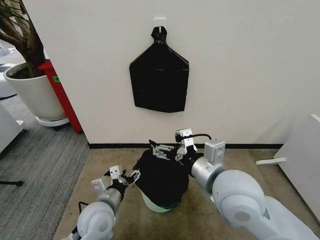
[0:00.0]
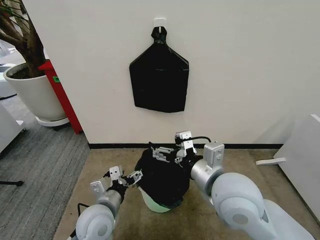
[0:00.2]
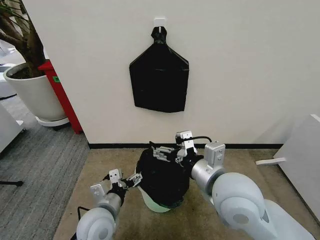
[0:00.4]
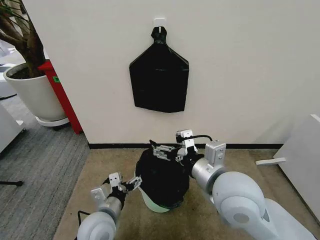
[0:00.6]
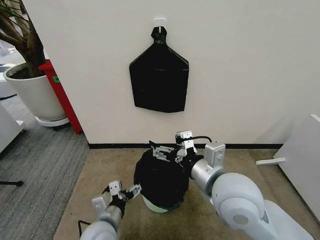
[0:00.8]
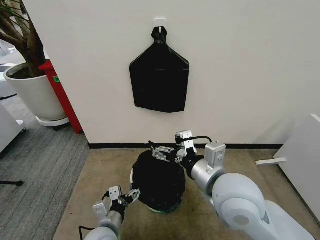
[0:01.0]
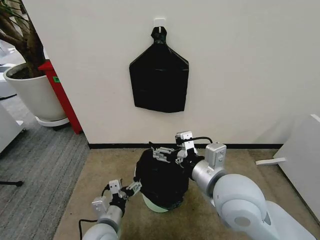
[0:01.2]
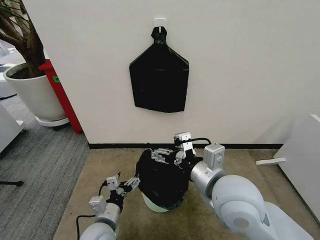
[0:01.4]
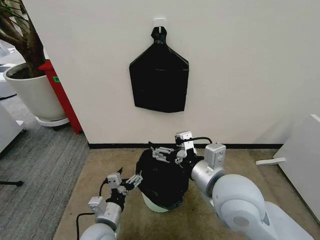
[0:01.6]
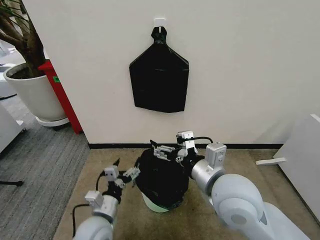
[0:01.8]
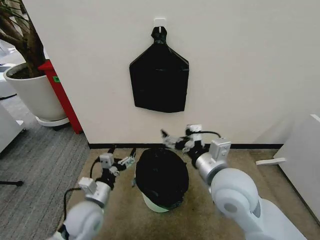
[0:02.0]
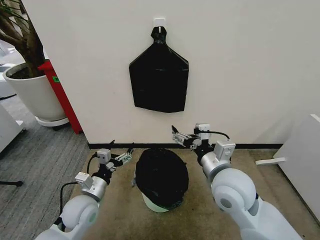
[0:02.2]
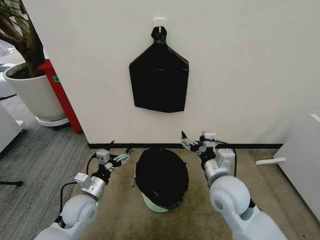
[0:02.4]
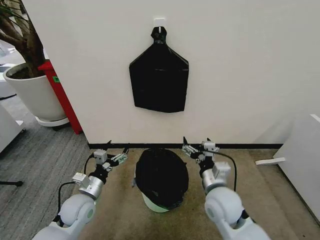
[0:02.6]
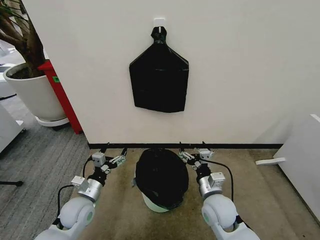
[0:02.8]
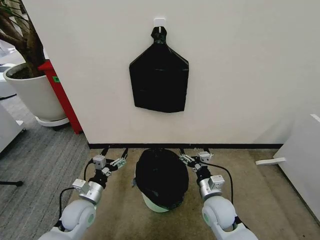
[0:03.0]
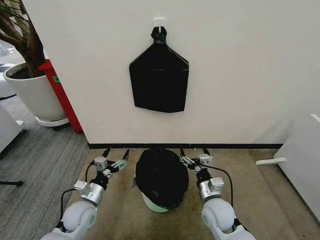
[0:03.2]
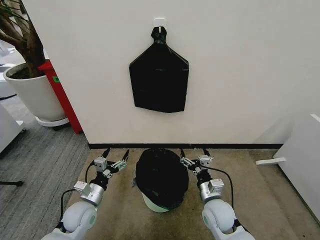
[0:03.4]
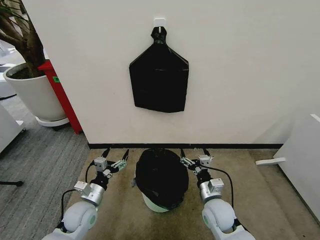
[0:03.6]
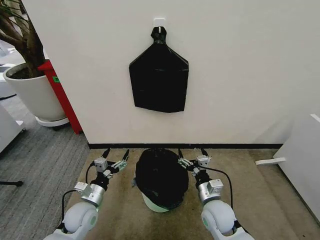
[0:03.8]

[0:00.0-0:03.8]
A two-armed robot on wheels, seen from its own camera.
Task of the whole recording: Place the garbage bag over the trash bin.
0:00.0 to 0:01.2: The left gripper goes roughly 5 cm downward.
0:01.2 to 0:02.6: The right gripper moves downward, some 15 cm; the left gripper shifts some 15 cm to the left and forward.
0:02.6 to 0:03.8: The right gripper moves downward, about 10 cm.

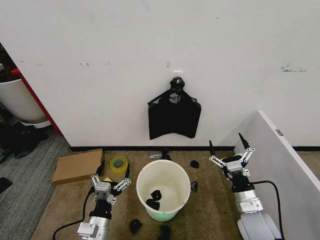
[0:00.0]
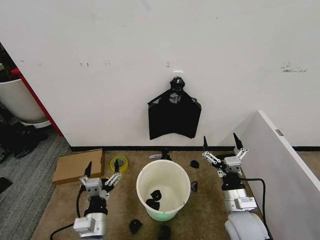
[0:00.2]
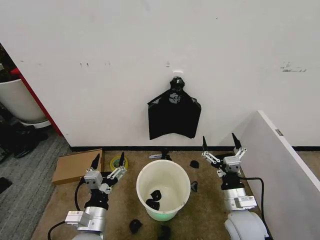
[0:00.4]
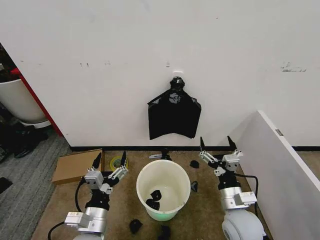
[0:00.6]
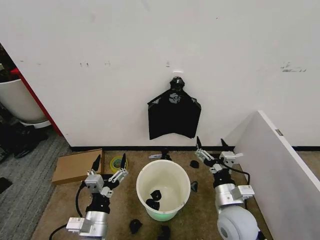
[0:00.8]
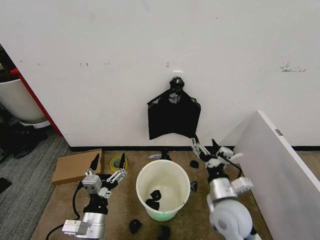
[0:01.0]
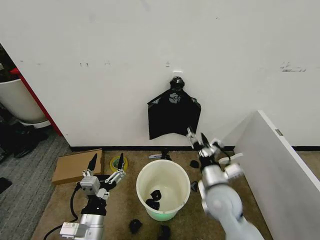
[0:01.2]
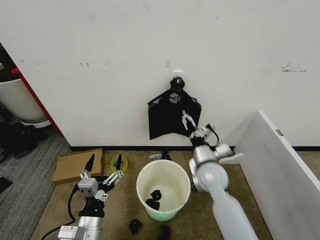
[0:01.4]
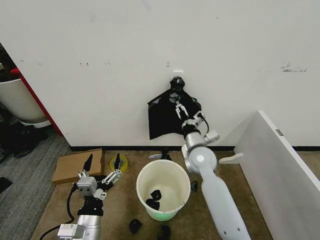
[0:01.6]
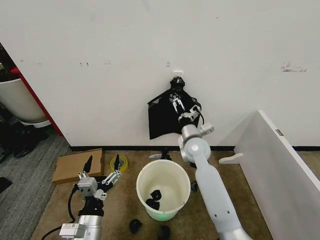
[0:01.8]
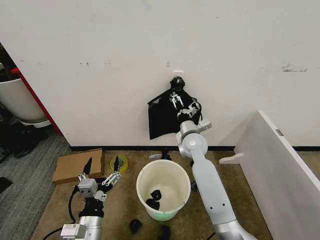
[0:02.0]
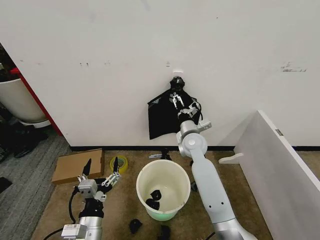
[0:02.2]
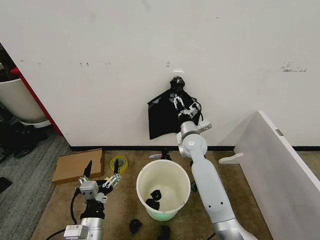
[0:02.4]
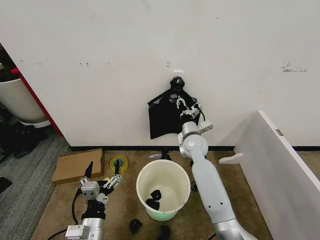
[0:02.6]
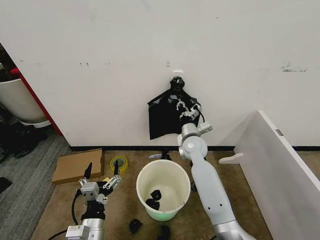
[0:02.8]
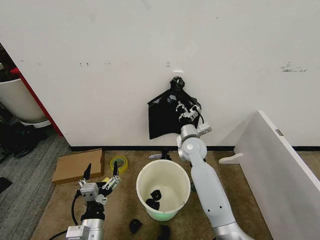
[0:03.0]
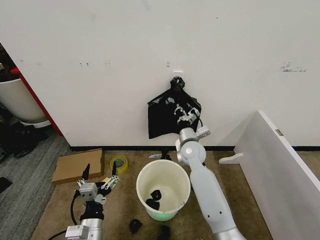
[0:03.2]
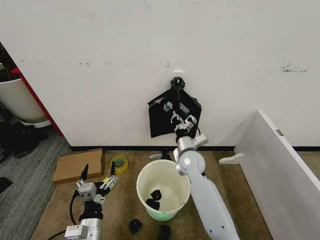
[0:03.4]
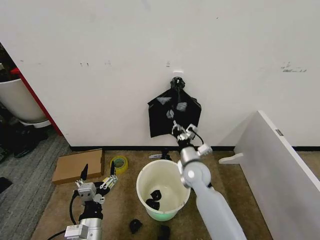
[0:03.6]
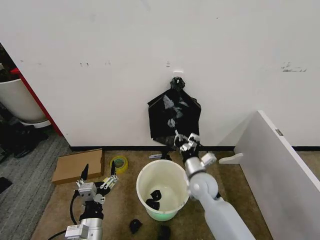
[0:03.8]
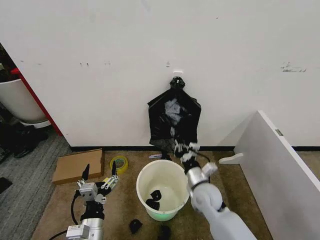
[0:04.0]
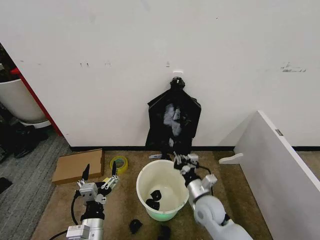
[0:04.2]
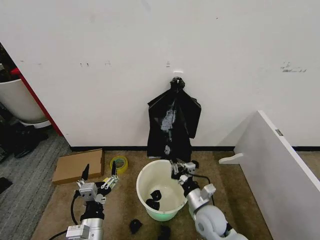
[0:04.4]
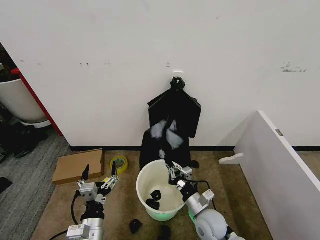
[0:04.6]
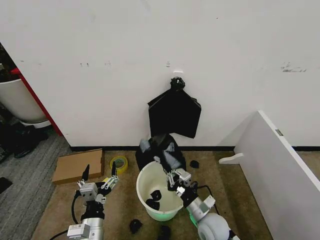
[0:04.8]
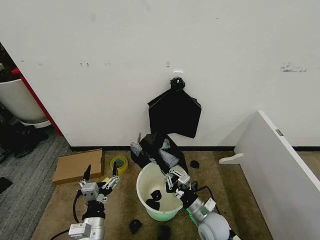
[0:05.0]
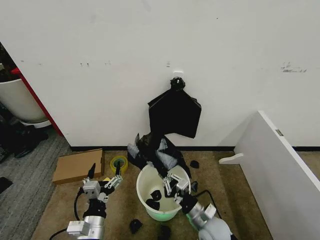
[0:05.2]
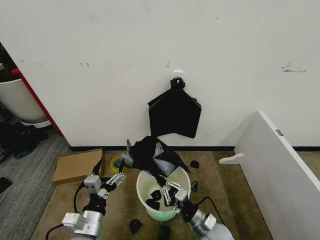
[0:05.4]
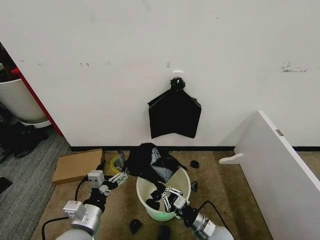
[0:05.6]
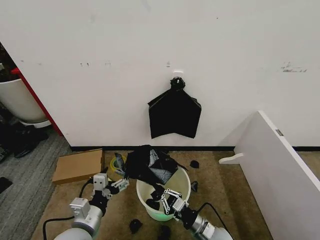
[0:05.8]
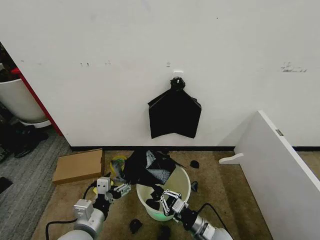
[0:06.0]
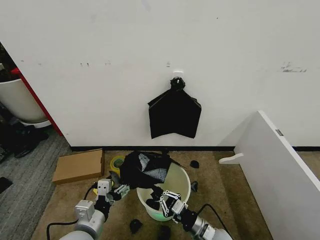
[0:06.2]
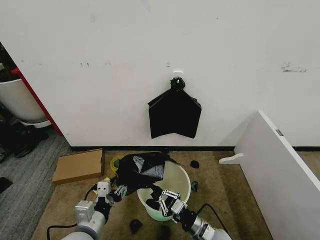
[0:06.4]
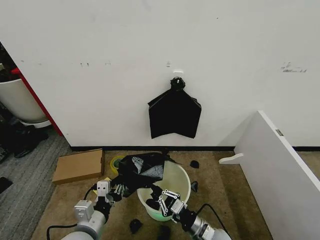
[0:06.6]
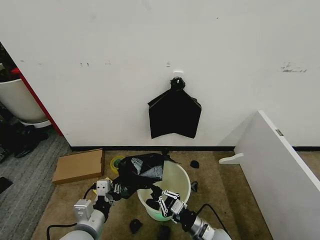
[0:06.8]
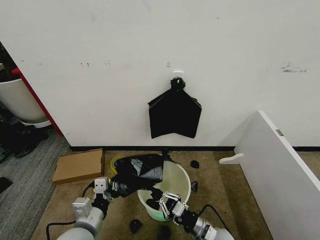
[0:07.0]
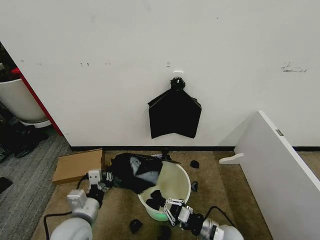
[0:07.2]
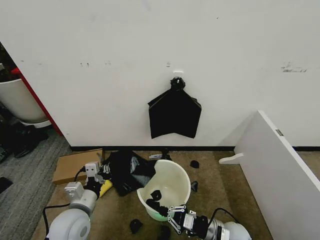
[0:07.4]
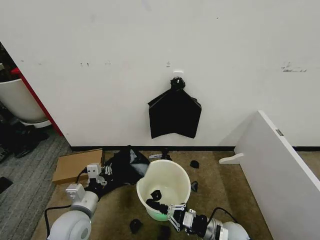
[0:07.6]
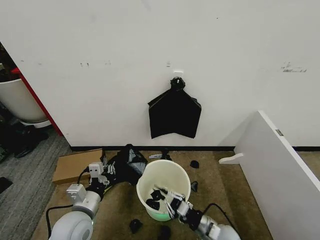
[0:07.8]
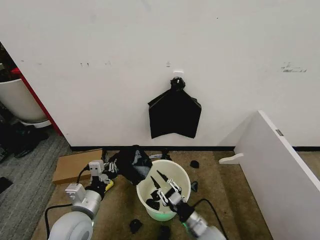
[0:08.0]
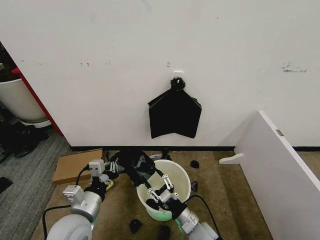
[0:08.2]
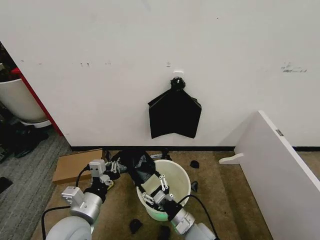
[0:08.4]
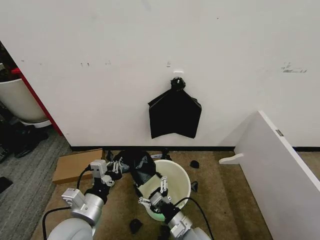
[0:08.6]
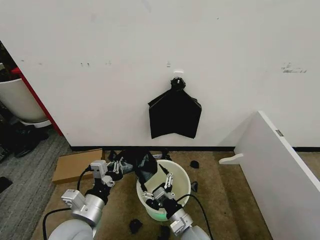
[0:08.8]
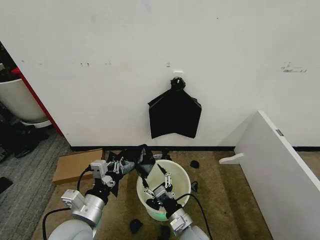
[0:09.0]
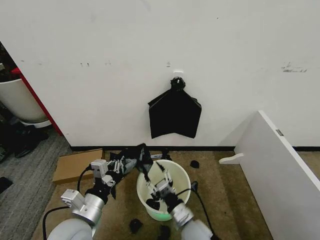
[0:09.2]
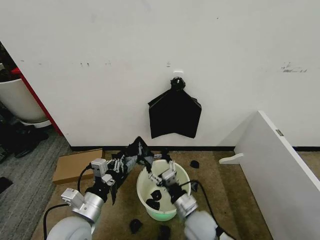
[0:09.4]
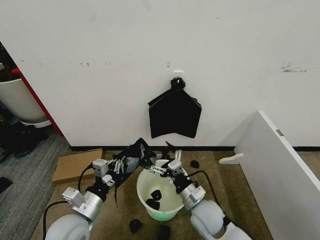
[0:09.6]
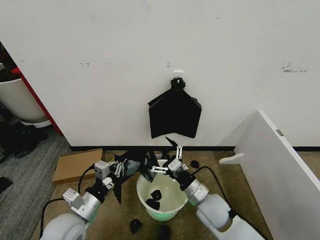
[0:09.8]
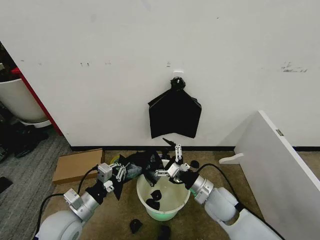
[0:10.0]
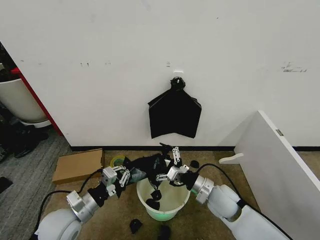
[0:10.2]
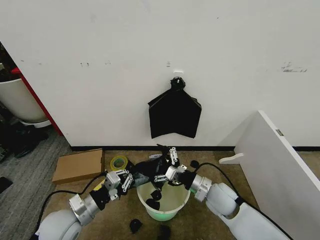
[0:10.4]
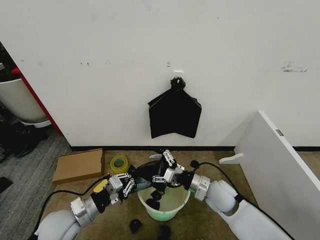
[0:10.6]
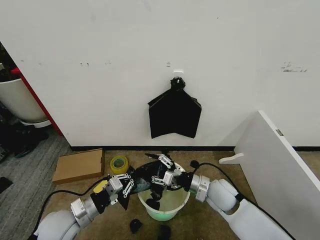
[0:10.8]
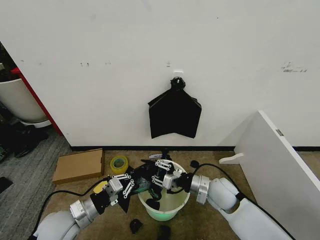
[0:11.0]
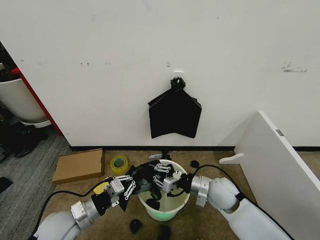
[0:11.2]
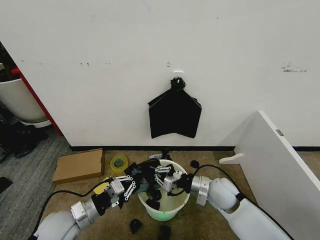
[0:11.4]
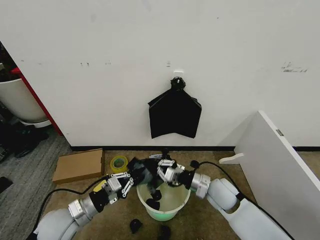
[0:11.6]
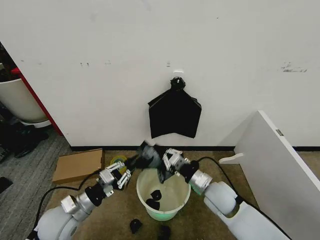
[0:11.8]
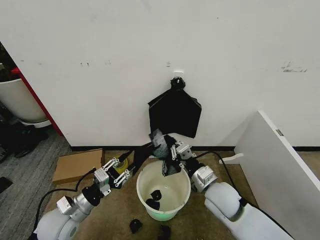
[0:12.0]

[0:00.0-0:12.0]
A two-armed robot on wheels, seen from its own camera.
Task of the whole recording: Place the garbage bag over the trash bin.
0:01.6 to 0:03.0: The right gripper goes about 5 cm forward, and closes its fingers.
0:03.0 to 0:04.4: The right gripper is displaced backward and downward by roughly 25 cm.
0:04.4 to 0:06.0: The left gripper shifts by some 5 cm; the right gripper goes some 5 cm backward.
0:06.0 to 0:07.6: The left gripper shifts approximately 5 cm forward, and closes, while the right gripper heads to the right, covering approximately 5 cm.
0:07.6 to 0:09.0: The left gripper is displaced upward by approximately 5 cm. Meanwhile the right gripper shifts some 15 cm to the left, and opens its fingers.
0:09.0 to 0:10.4: The right gripper travels forward, to the right and upward by some 15 cm, while the left gripper is displaced to the left and downward by roughly 10 cm.
0:10.4 to 0:12.0: The left gripper opens its fingers, while the right gripper shifts by about 5 cm, and closes up.

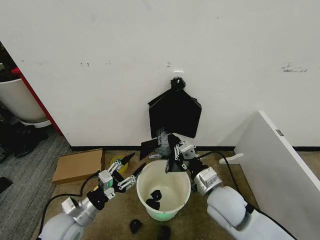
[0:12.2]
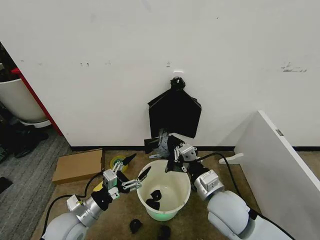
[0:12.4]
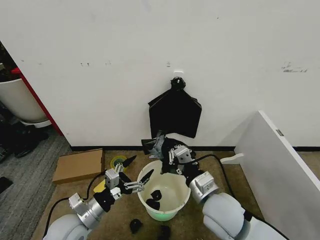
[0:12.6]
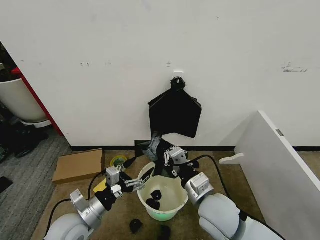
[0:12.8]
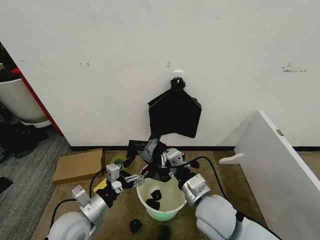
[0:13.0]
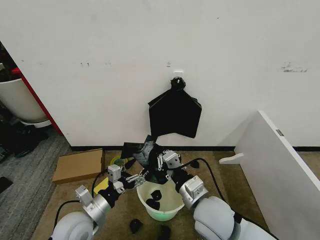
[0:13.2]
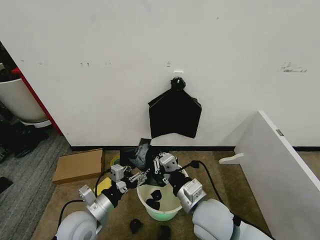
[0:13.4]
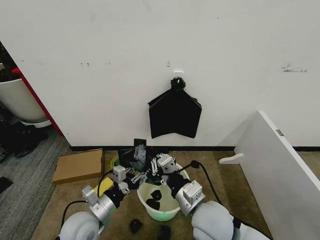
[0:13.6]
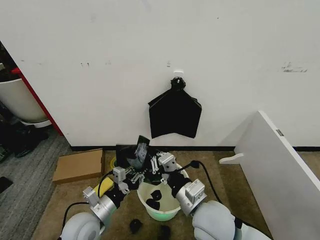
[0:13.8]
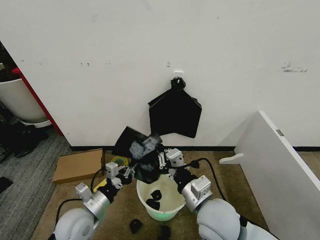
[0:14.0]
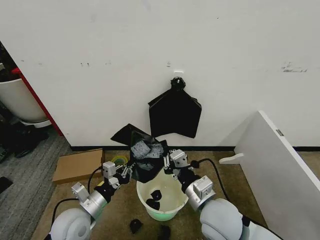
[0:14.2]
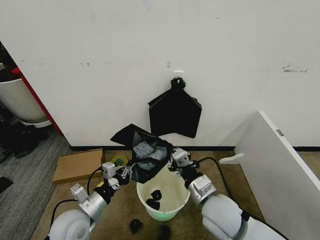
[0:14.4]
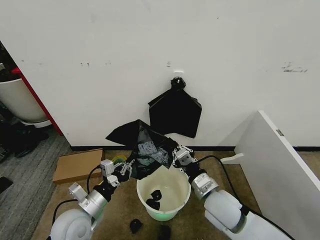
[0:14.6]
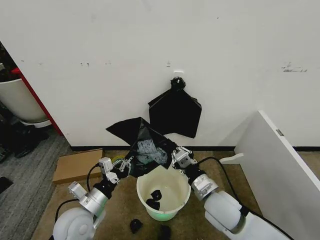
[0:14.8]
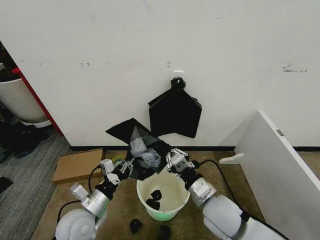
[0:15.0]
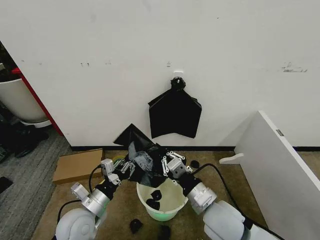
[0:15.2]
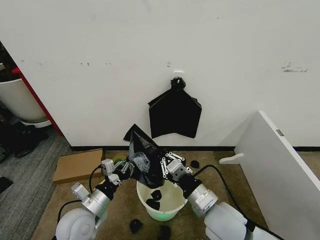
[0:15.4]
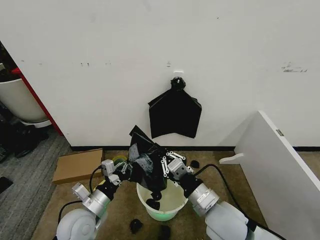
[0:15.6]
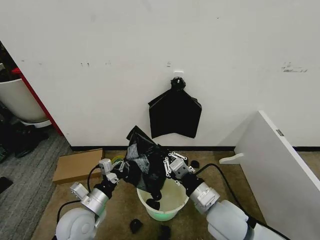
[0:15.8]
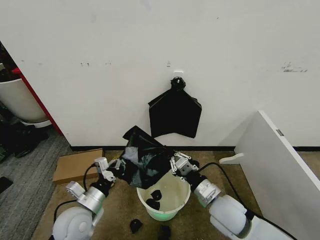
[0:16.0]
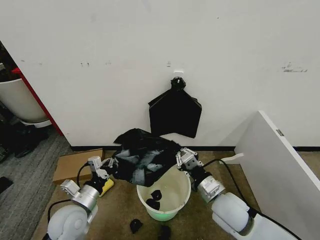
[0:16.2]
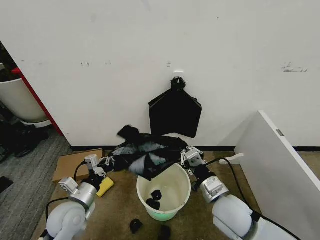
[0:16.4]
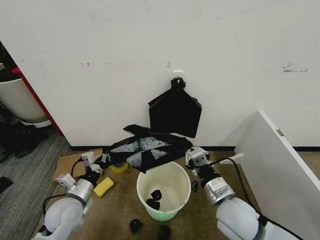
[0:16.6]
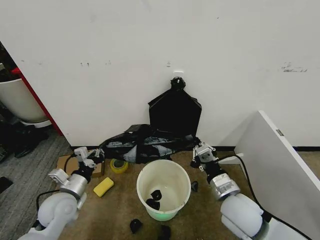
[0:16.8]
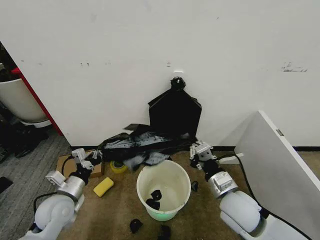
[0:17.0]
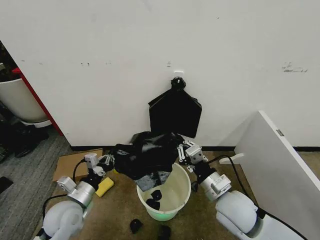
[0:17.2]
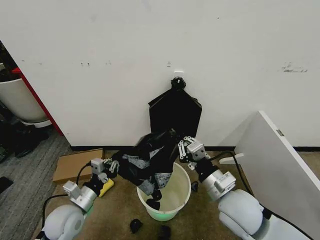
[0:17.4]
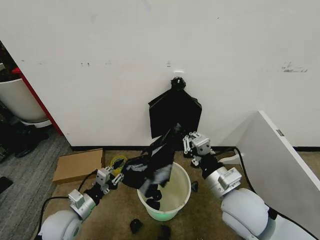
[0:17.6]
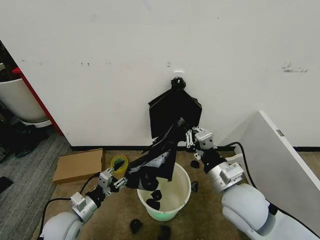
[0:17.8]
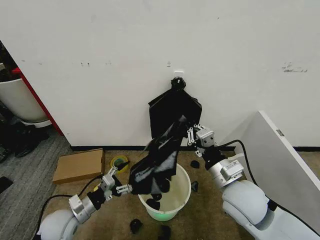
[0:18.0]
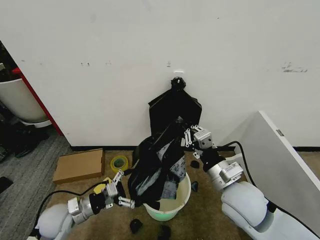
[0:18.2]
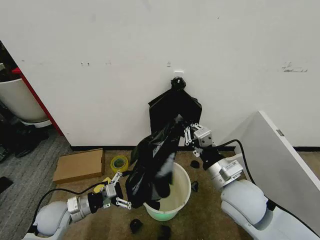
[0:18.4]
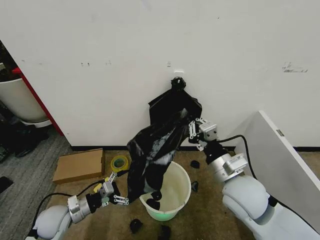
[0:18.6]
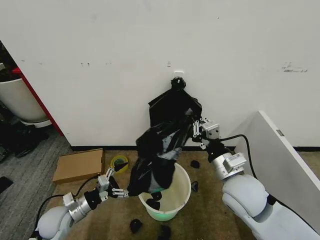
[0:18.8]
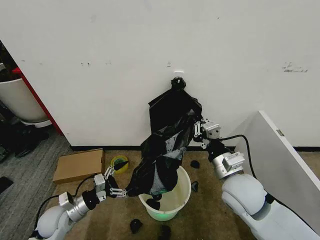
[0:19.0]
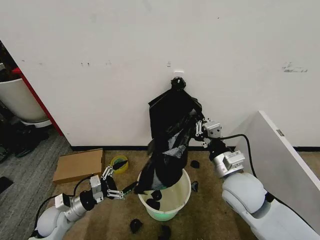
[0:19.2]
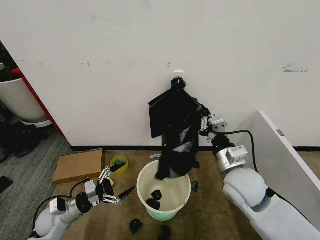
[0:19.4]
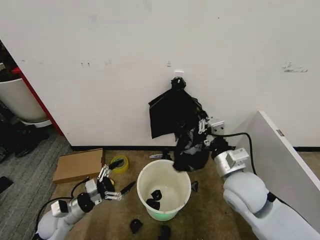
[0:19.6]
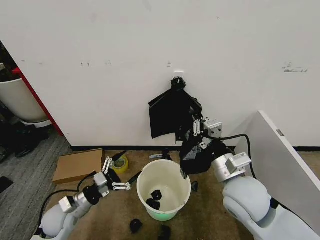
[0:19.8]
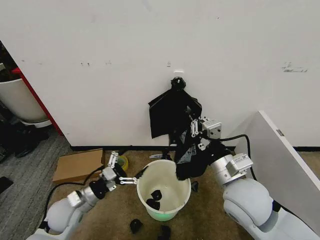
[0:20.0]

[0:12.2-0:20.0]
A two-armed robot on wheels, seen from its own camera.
Task of the whole recording: Place the garbage bag over the trash bin.
0:12.2 to 0:13.8: The left gripper travels to the right by approximately 5 cm, and closes, while the right gripper moves to the left and backward, about 5 cm.
0:15.4 to 0:16.8: The right gripper travels to the right by approximately 5 cm, while the left gripper is displaced to the left by about 5 cm.
0:16.8 to 0:18.4: The left gripper shifts by some 5 cm, and opens up; the right gripper moves upward, approximately 5 cm.
